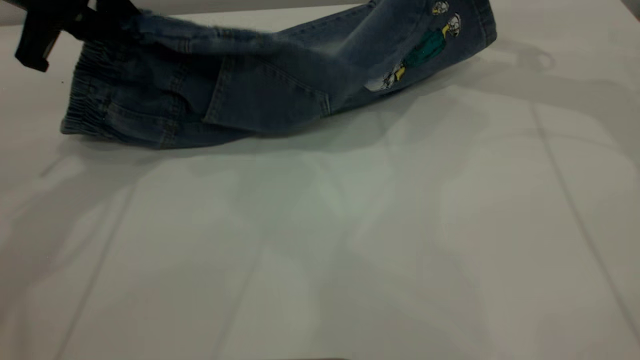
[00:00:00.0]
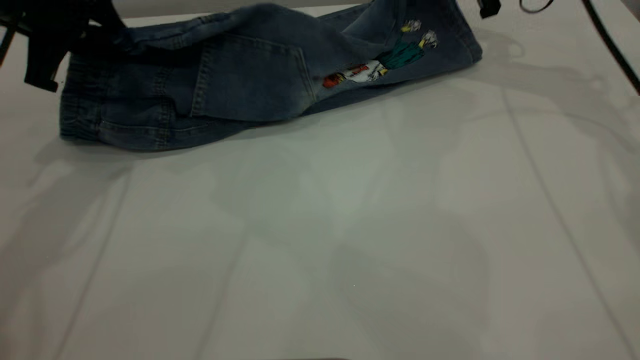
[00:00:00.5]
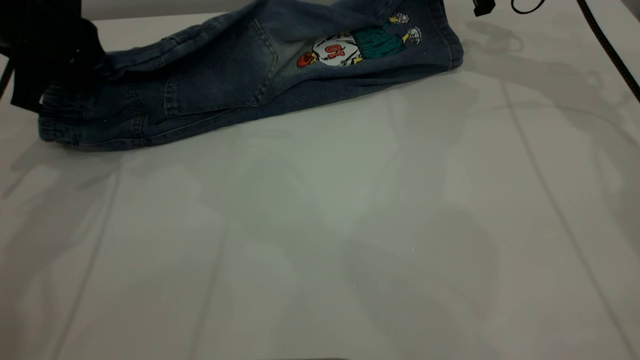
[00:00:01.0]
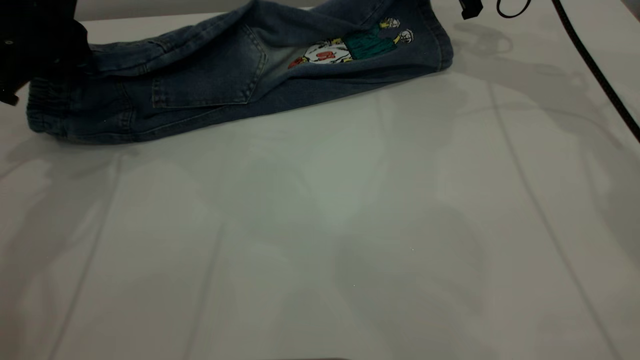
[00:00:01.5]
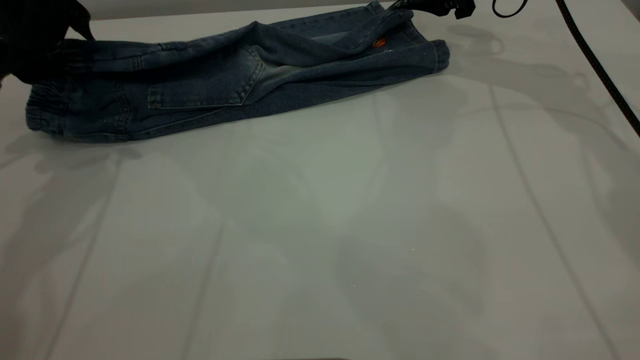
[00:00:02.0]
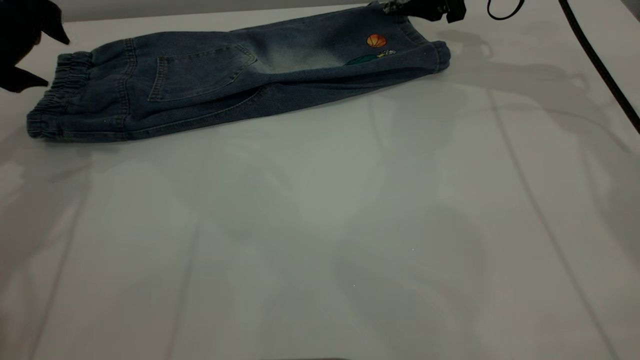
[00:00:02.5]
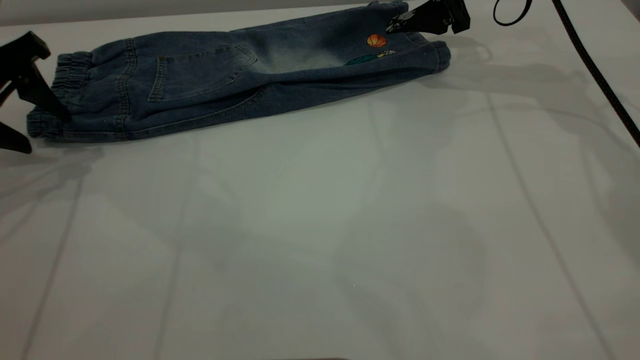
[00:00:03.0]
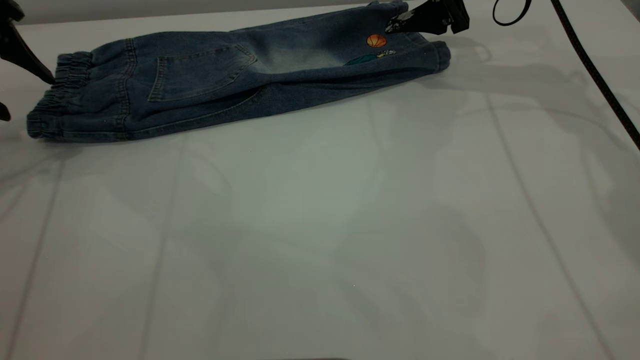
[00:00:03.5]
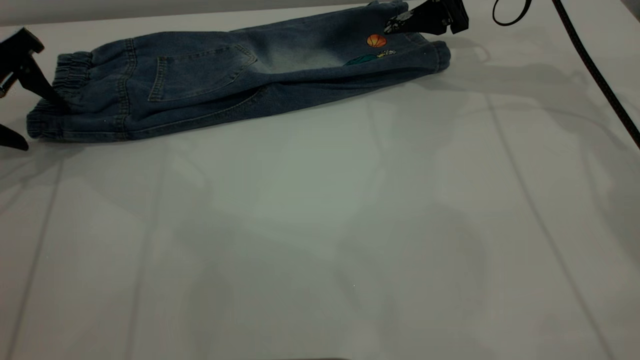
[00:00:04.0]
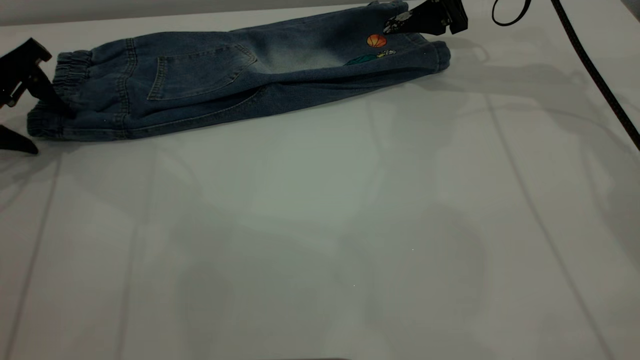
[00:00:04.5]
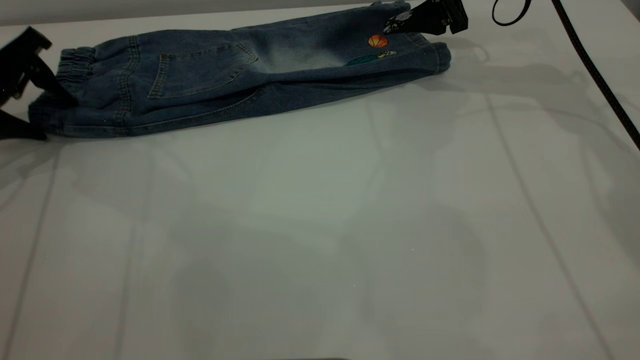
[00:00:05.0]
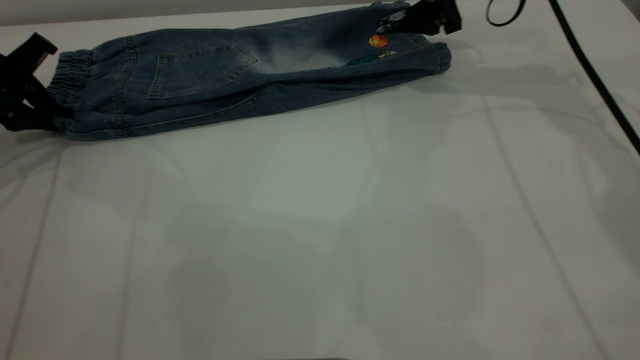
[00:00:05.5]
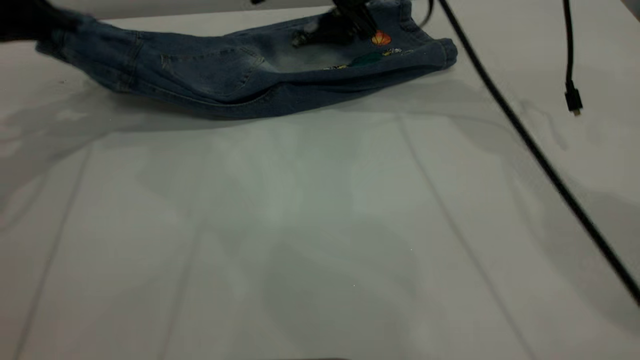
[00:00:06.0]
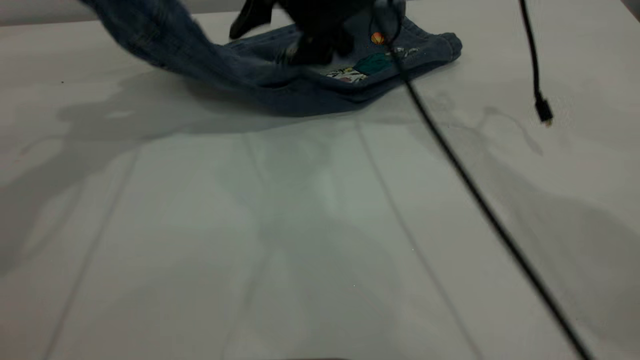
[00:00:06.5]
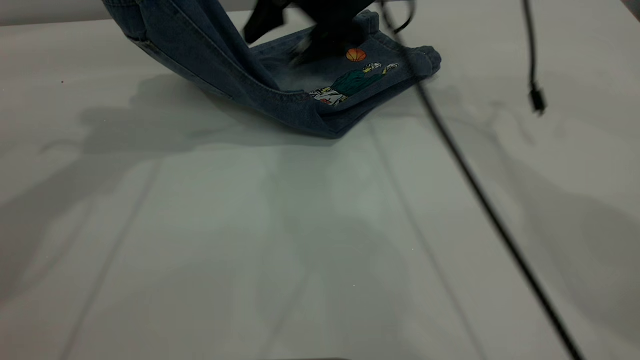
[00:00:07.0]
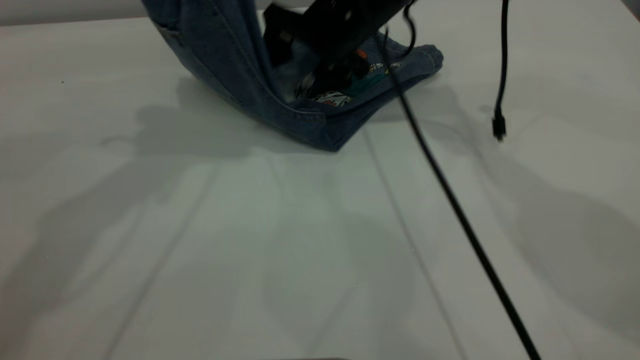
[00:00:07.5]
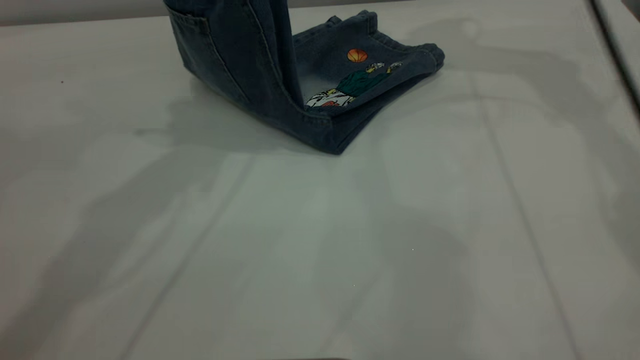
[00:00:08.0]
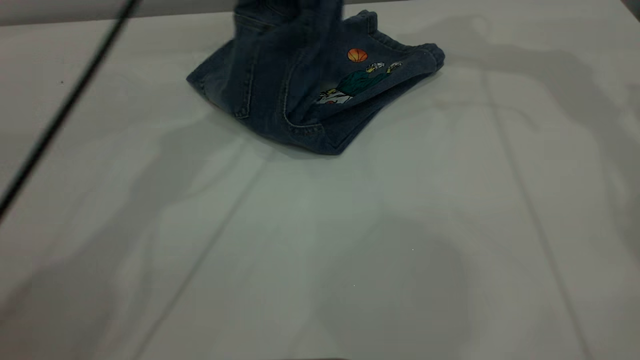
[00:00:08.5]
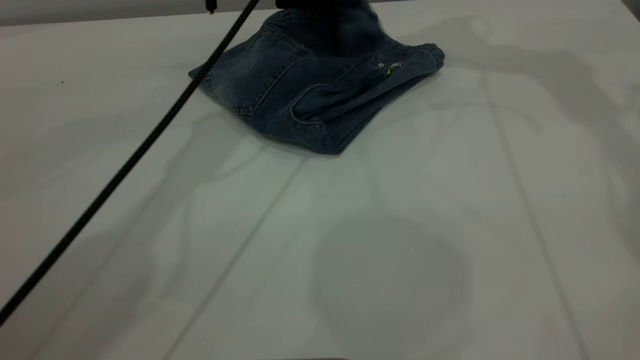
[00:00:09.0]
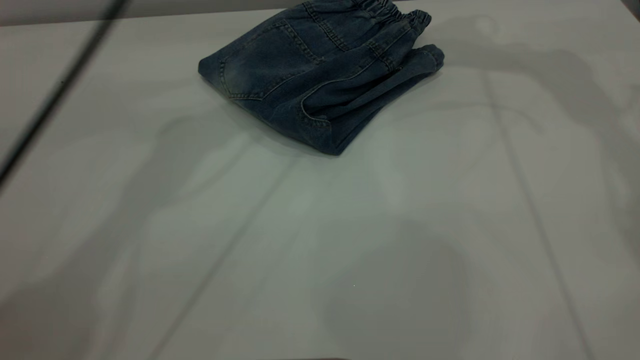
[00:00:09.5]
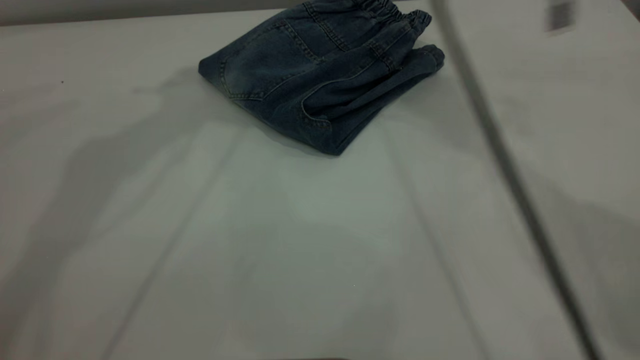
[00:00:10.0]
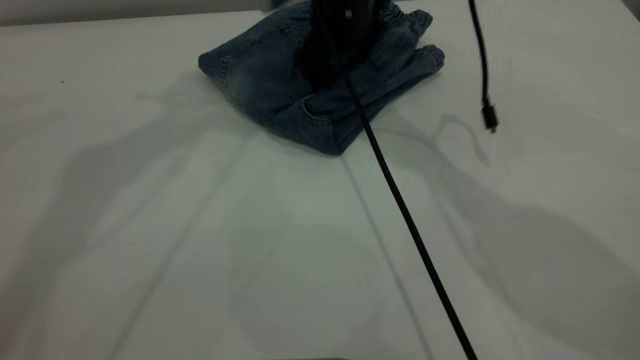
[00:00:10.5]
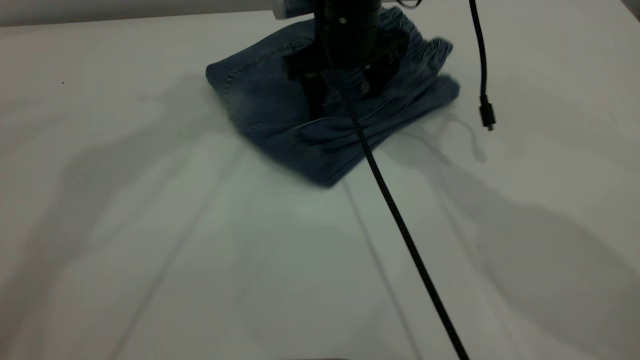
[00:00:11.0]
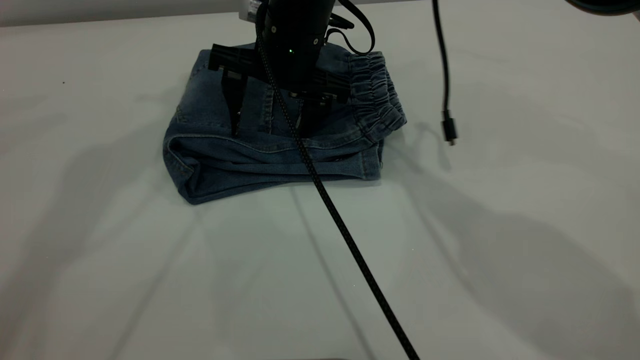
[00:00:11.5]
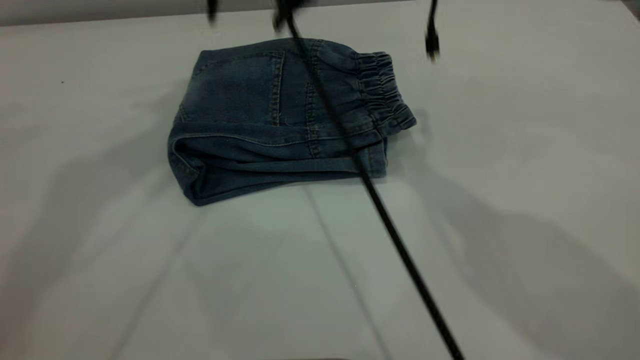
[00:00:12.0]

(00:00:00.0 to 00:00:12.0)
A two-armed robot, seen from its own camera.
Step, 00:00:00.0 - 00:00:02.0: Fold the bottom of the pants upward.
Step, 00:00:02.5 - 00:00:09.5: Fold the pants from left to right.
00:00:00.0 - 00:00:02.0: The left gripper moves approximately 5 cm, and opens. The right gripper changes place by some 10 cm, and opens.
00:00:02.0 - 00:00:04.0: The left gripper travels to the left by some 10 cm.
00:00:04.0 - 00:00:06.0: The right gripper goes about 10 cm to the left, while the left gripper shifts some 5 cm upward, and closes.
00:00:06.0 - 00:00:08.0: The left gripper shifts about 20 cm to the right and upward. The right gripper is displaced upward and to the right by some 15 cm.
00:00:08.0 - 00:00:10.0: The left gripper is displaced upward by roughly 10 cm, and opens. Meanwhile the right gripper goes about 15 cm to the left and downward.
00:00:10.0 - 00:00:12.0: The right gripper moves to the left, approximately 10 cm, and reaches approximately 10 cm downward, then returns. Meanwhile the left gripper changes place by some 5 cm.

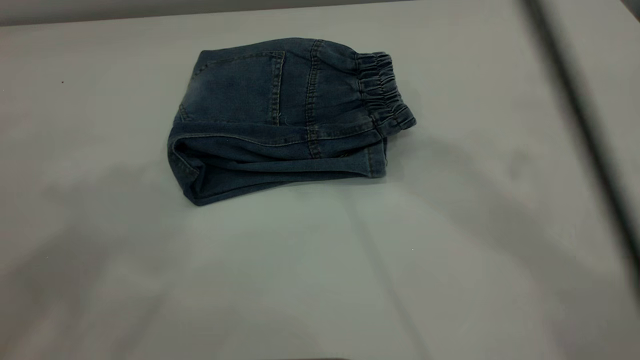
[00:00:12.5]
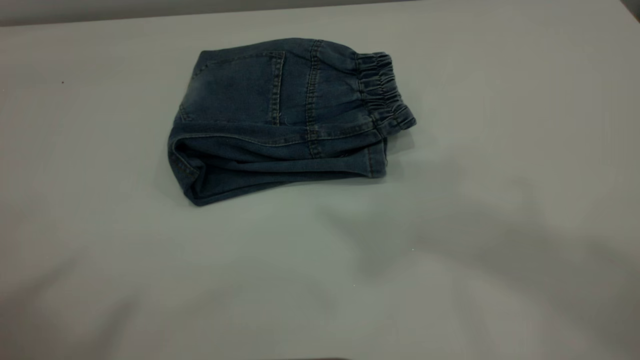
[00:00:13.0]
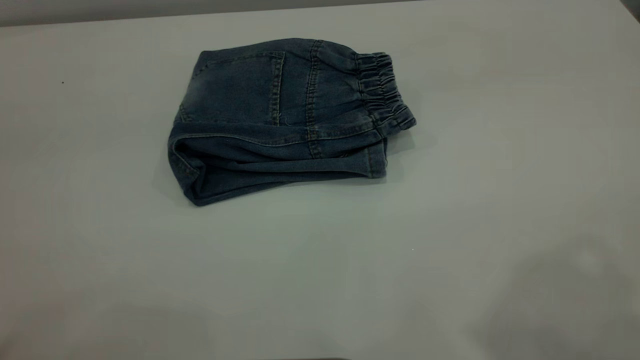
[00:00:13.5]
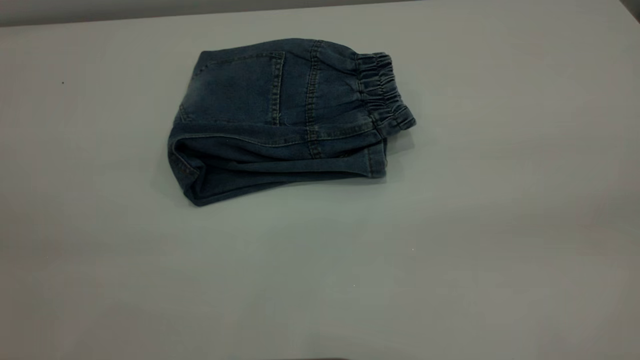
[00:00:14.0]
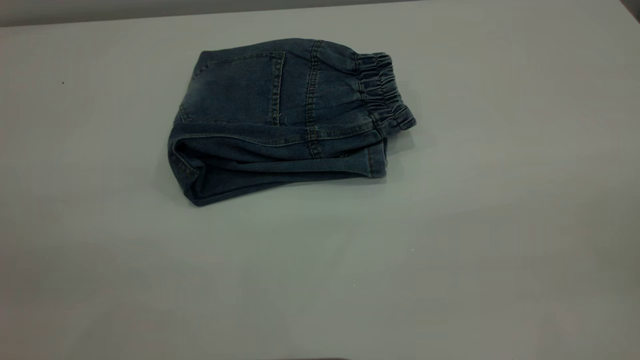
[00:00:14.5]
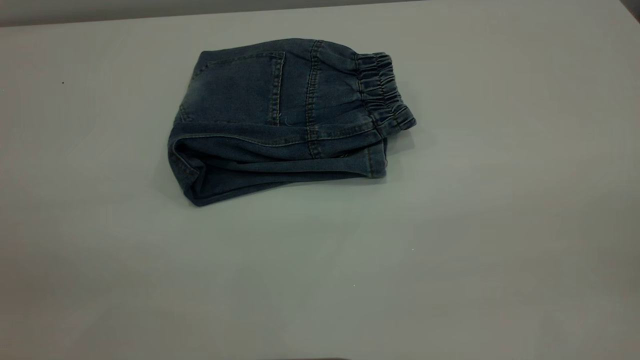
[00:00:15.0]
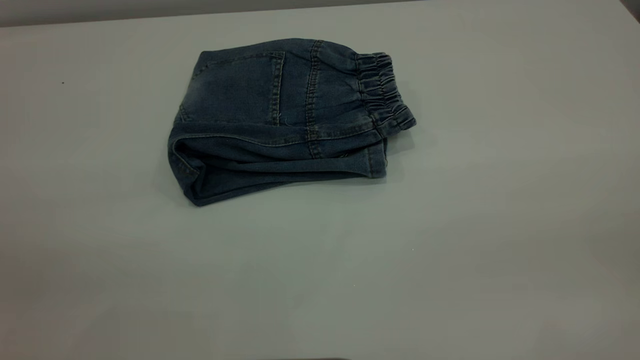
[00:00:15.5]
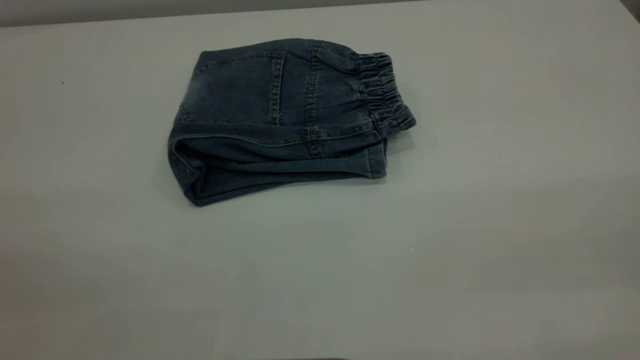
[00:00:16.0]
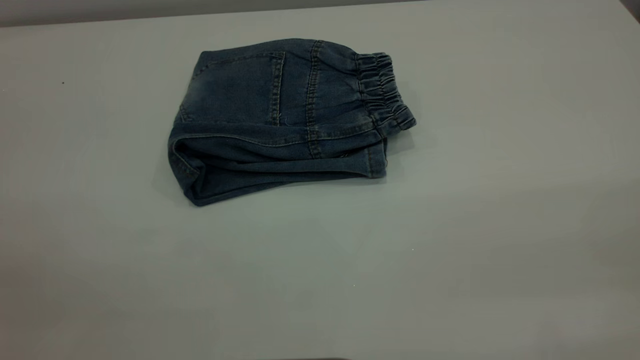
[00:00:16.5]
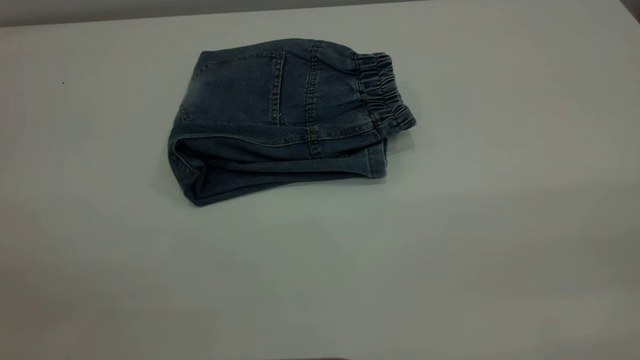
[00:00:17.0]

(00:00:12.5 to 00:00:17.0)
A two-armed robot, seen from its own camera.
00:00:12.5 - 00:00:14.5: The right gripper heads backward, to the right and downward, covering some 50 cm.
